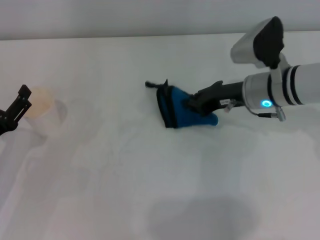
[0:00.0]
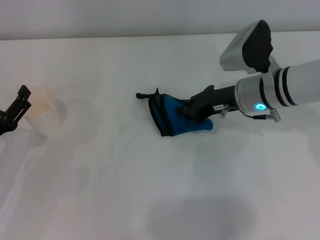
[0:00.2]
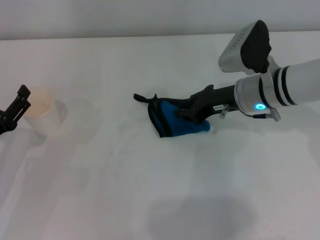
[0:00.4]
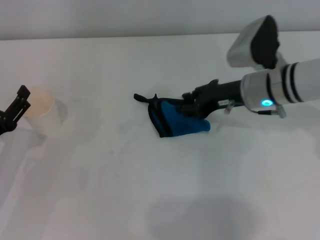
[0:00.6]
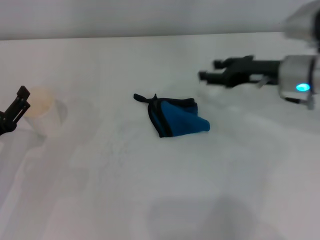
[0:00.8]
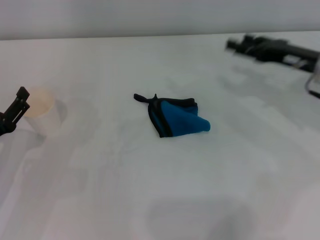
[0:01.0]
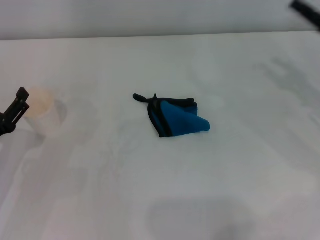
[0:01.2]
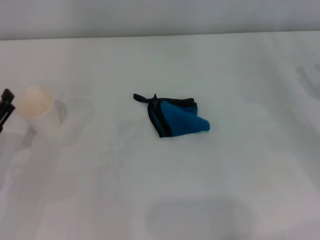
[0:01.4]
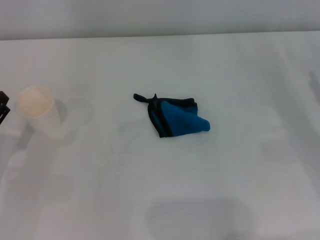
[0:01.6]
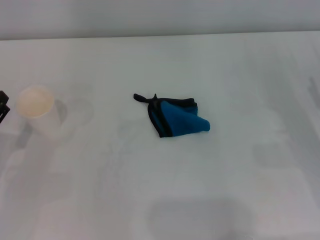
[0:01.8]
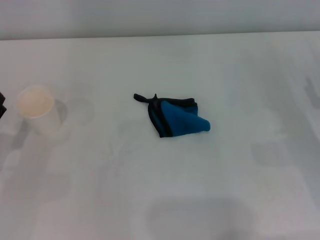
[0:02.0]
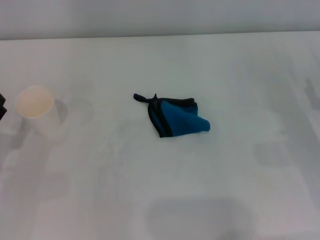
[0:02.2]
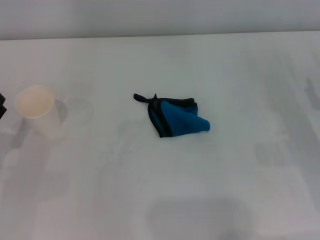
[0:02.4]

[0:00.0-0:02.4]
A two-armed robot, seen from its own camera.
0:00.0 to 0:01.2: The right gripper shifts about 15 cm to the right and backward, and opens up.
0:01.2 to 0:02.4: The right gripper goes roughly 10 cm downward and backward.
